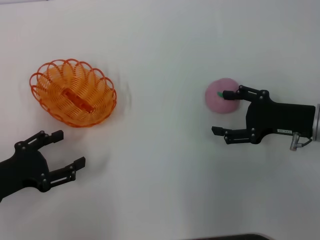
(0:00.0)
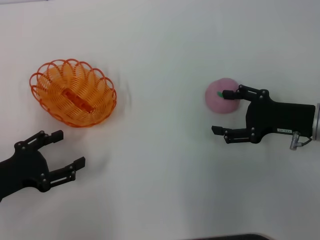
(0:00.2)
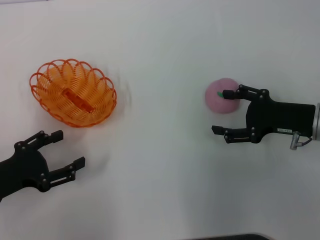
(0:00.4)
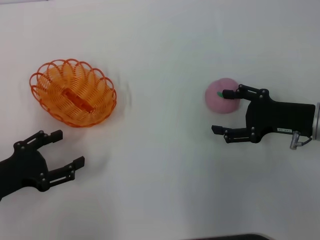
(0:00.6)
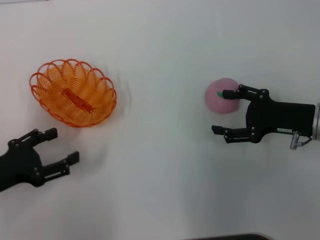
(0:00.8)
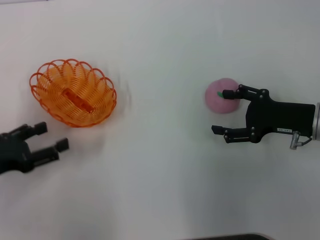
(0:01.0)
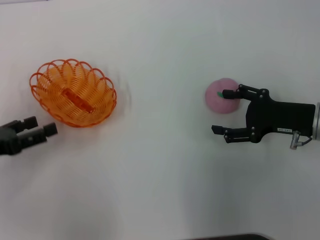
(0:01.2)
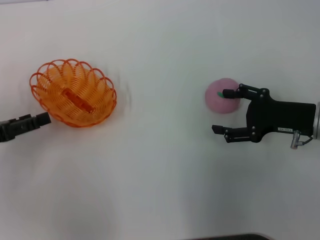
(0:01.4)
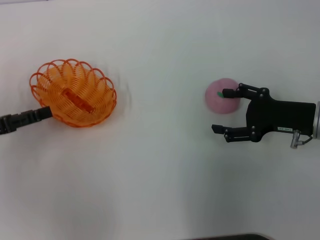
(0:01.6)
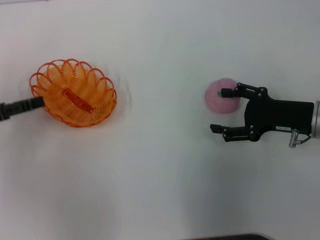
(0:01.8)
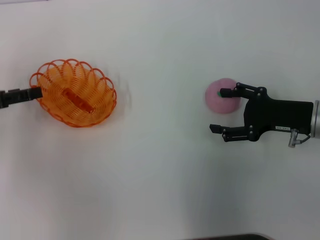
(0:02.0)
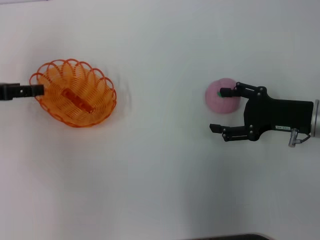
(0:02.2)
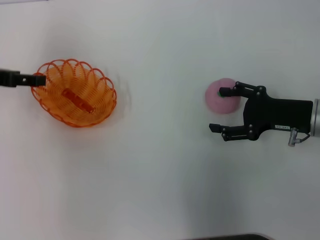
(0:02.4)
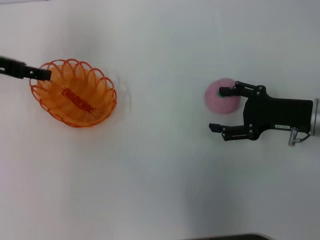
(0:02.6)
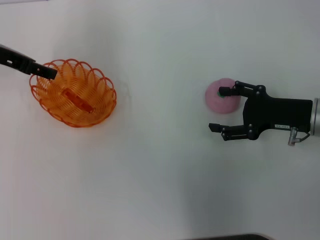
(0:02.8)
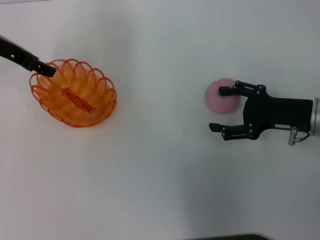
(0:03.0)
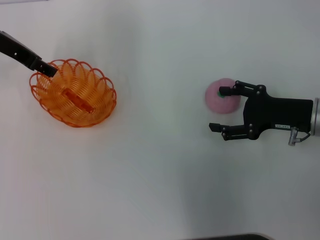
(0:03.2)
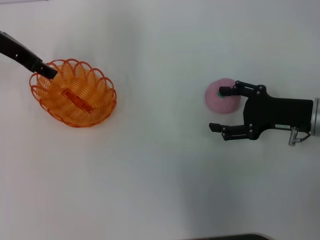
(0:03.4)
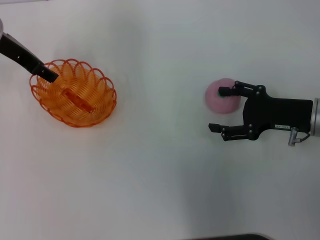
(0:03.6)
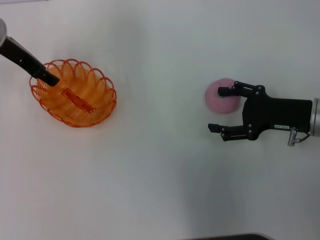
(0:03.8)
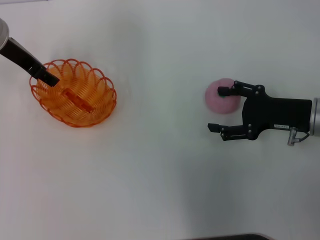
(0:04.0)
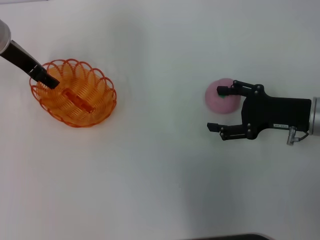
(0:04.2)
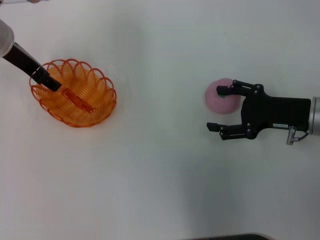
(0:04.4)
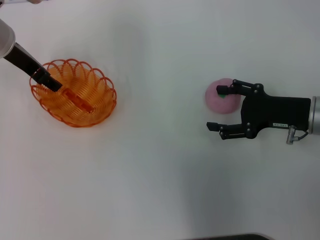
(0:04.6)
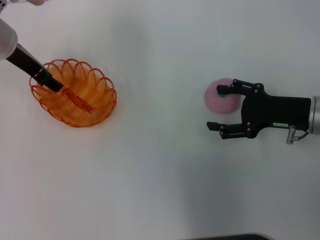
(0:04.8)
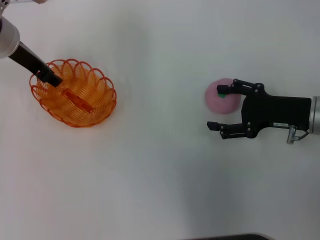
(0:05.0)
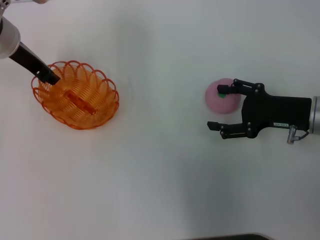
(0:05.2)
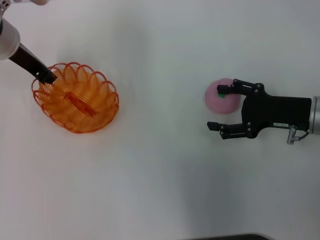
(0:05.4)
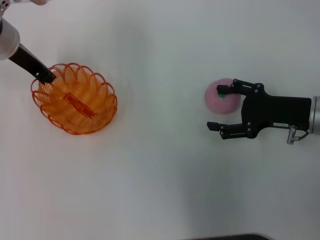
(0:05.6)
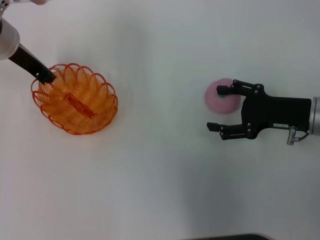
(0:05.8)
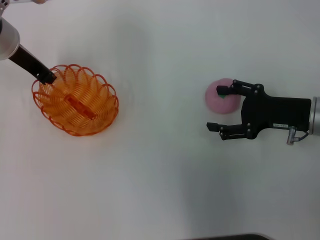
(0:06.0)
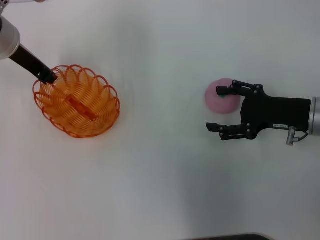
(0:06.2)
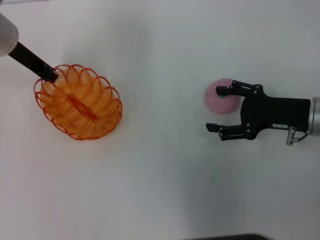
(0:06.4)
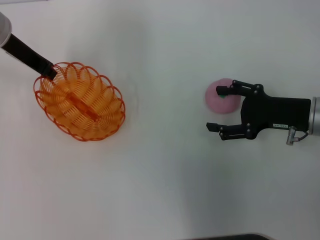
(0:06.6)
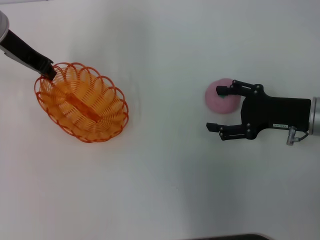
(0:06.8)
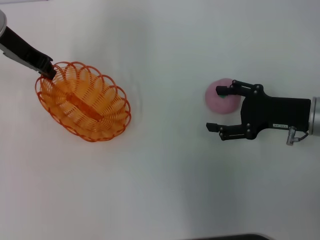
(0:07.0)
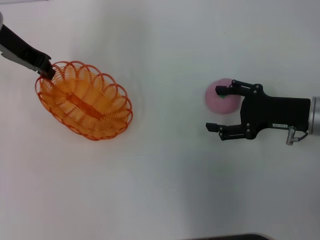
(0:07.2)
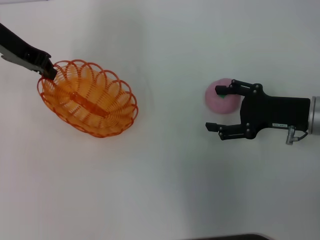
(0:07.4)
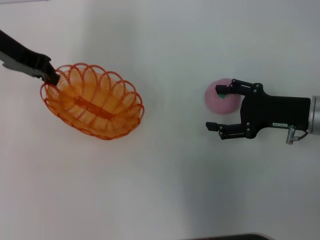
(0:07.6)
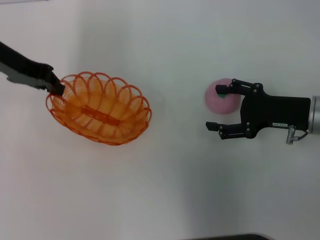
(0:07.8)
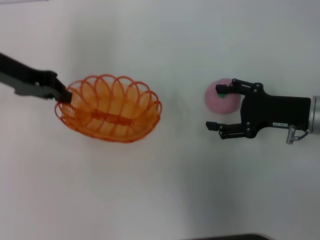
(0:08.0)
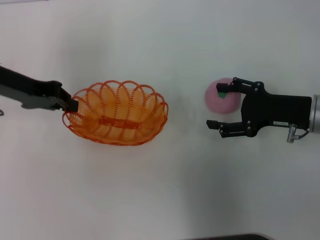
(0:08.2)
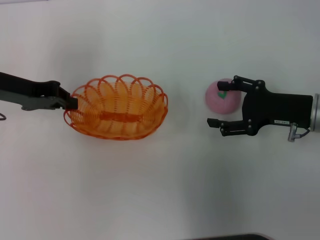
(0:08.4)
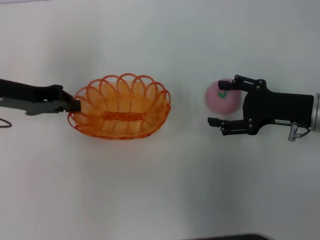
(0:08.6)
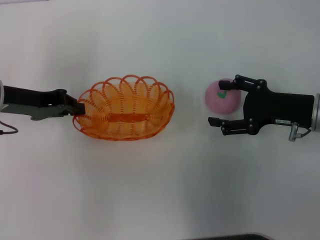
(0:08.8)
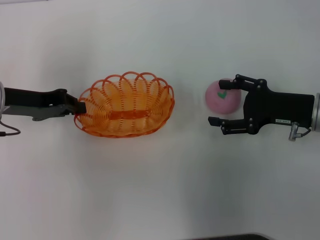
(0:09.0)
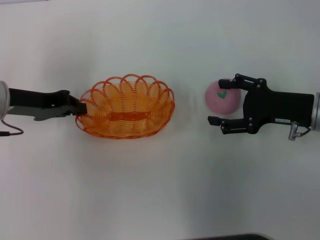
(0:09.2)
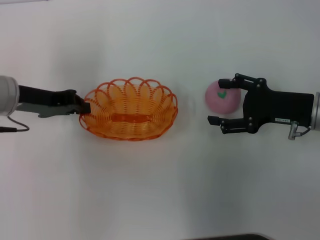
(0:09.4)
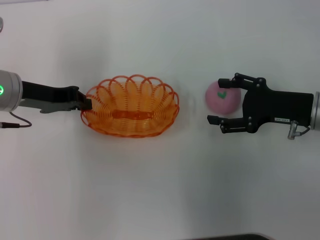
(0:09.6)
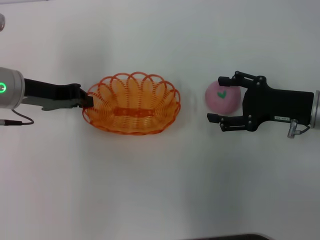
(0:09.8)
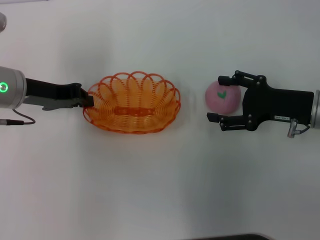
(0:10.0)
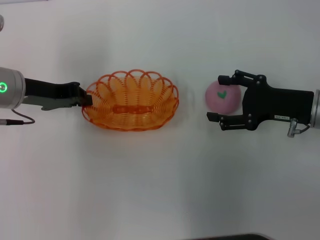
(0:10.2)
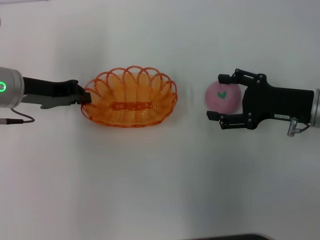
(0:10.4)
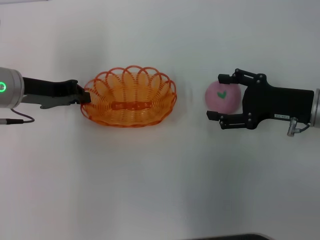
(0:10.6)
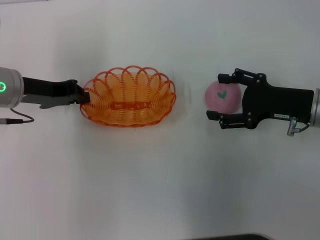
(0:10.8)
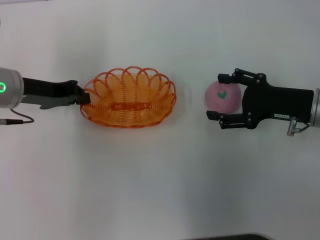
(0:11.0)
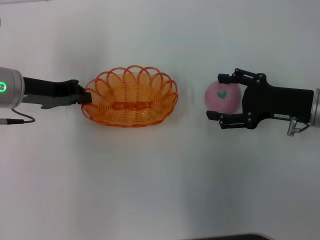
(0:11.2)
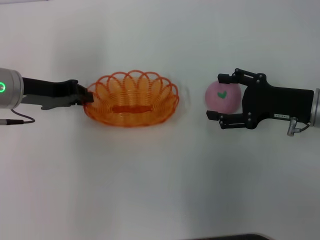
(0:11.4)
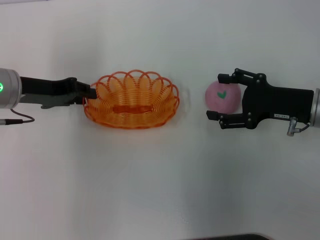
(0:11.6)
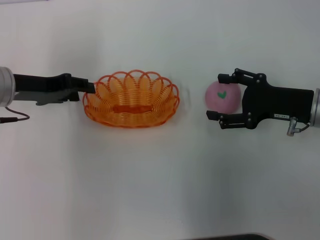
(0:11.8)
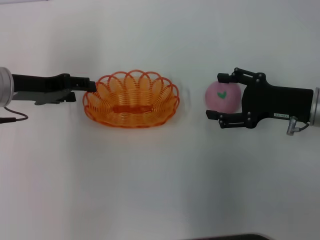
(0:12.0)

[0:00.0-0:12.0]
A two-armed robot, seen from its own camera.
Step, 0:00.0 to 0:07.4: Pick up the basket with the left gripper.
0:00.0 to 0:01.6: The left gripper shifts roughly 5 cm forward.
0:01.6 to 0:03.0: The left gripper goes some 20 cm forward, upward and to the right.
0:03.0 to 0:04.4: The grippers make only small movements.
0:04.4 to 0:06.0: The left gripper closes up.
0:07.6 to 0:09.0: The left gripper travels backward and downward by about 10 cm.
0:09.0 to 0:10.4: The grippers stay close to where they were, moving slightly.
0:10.4 to 0:12.0: The left gripper opens up.

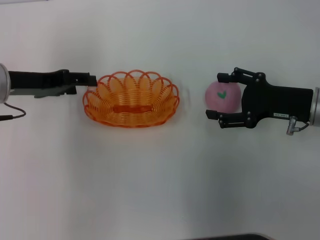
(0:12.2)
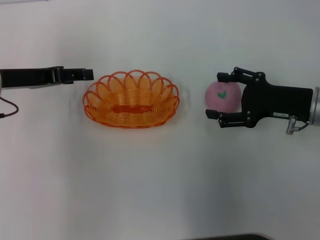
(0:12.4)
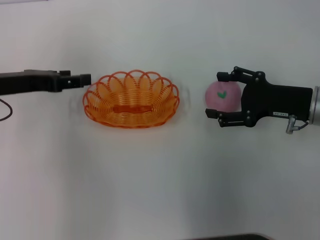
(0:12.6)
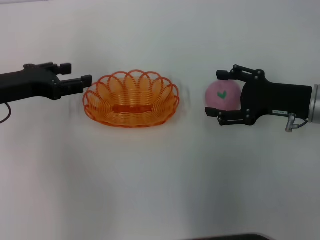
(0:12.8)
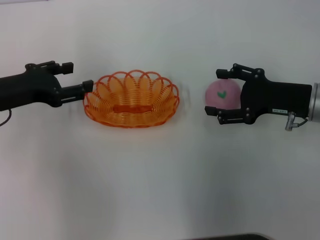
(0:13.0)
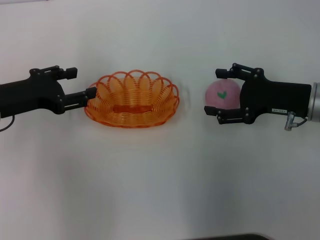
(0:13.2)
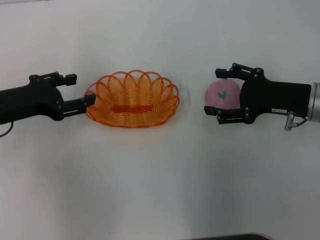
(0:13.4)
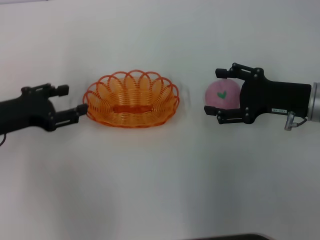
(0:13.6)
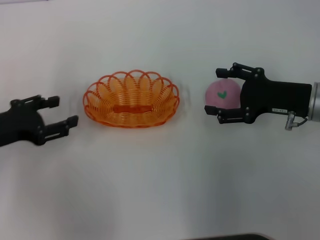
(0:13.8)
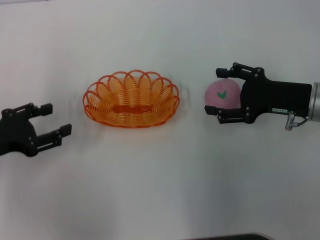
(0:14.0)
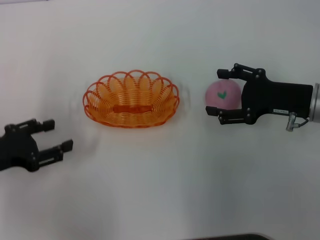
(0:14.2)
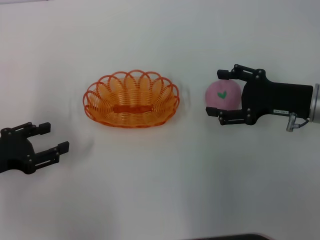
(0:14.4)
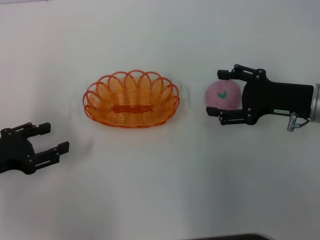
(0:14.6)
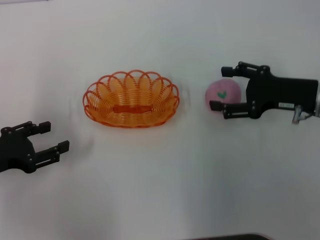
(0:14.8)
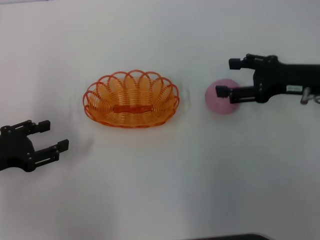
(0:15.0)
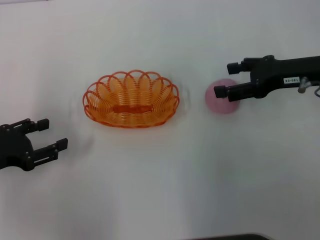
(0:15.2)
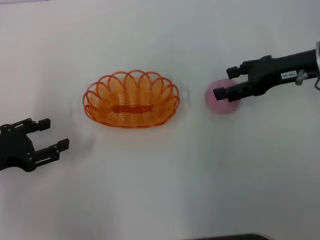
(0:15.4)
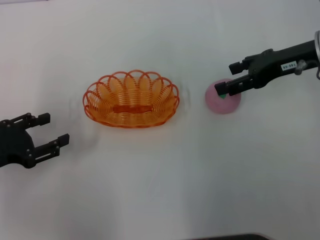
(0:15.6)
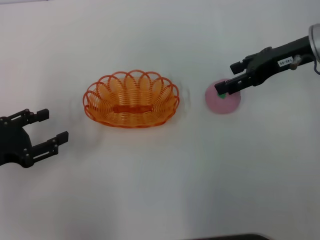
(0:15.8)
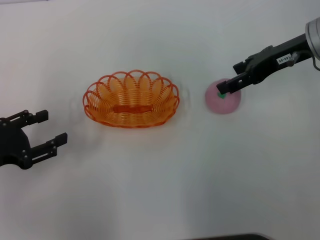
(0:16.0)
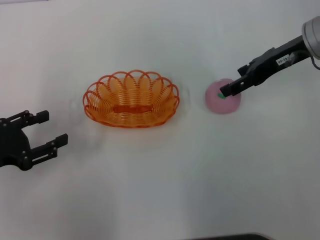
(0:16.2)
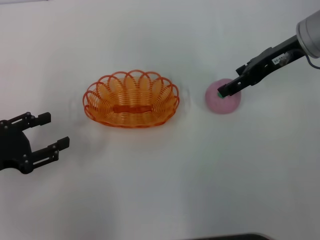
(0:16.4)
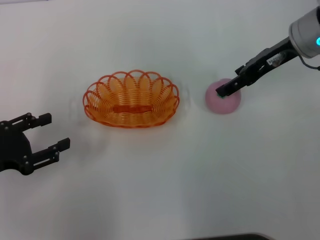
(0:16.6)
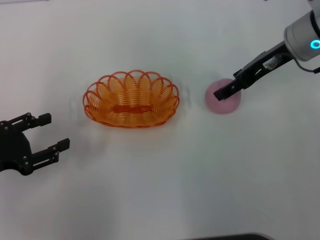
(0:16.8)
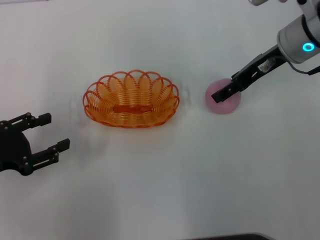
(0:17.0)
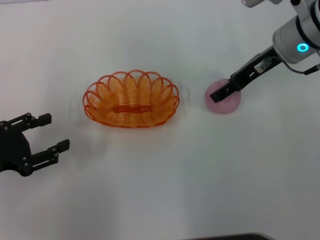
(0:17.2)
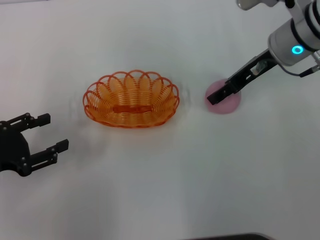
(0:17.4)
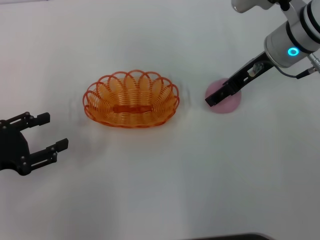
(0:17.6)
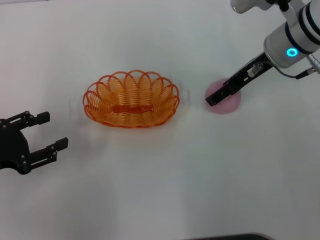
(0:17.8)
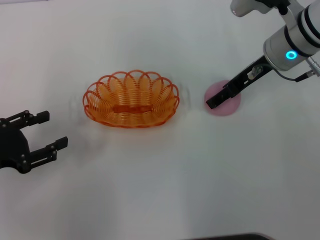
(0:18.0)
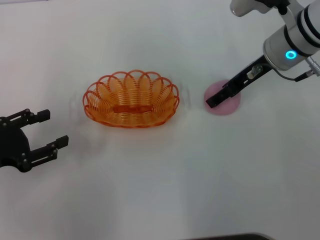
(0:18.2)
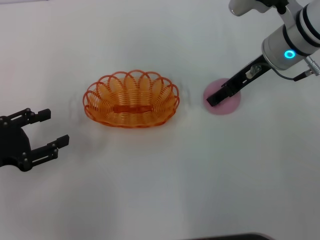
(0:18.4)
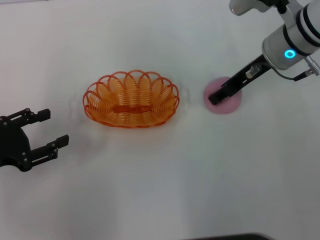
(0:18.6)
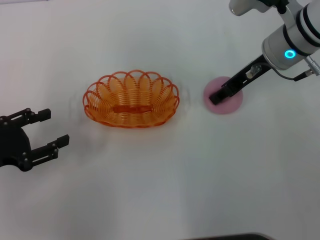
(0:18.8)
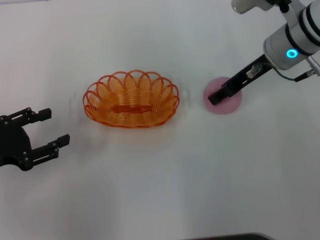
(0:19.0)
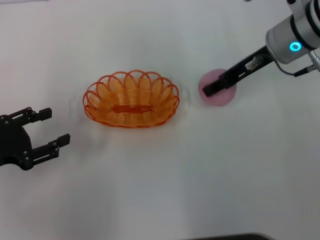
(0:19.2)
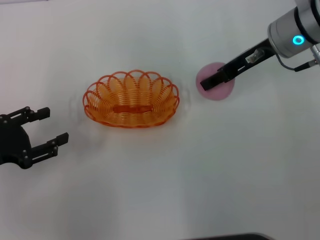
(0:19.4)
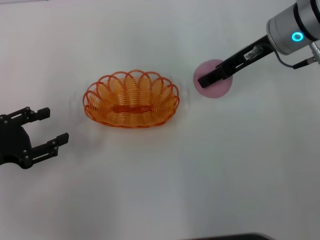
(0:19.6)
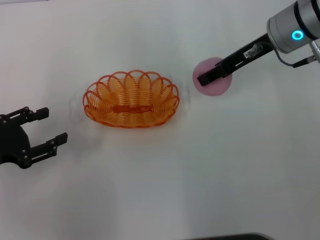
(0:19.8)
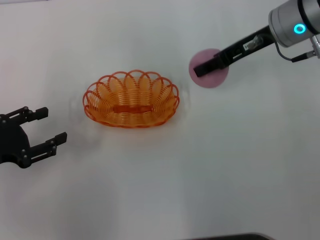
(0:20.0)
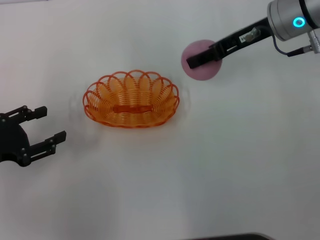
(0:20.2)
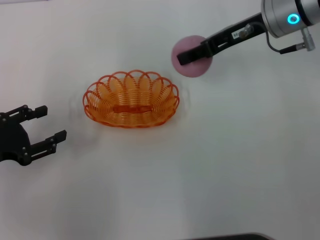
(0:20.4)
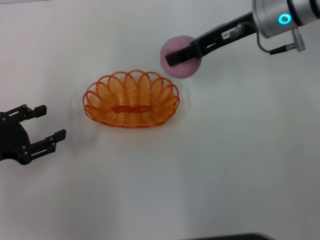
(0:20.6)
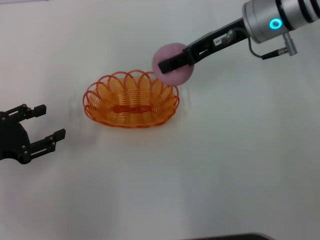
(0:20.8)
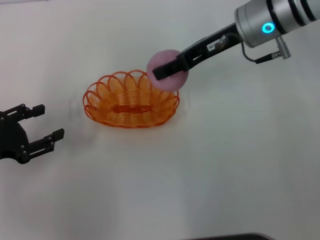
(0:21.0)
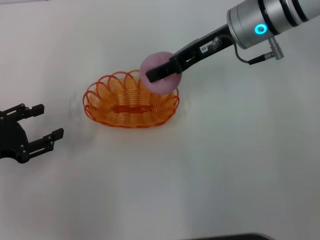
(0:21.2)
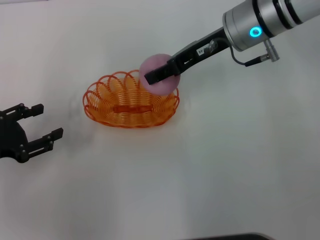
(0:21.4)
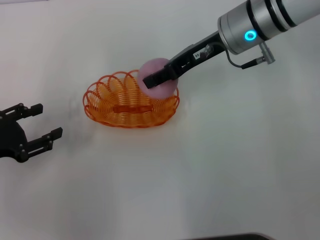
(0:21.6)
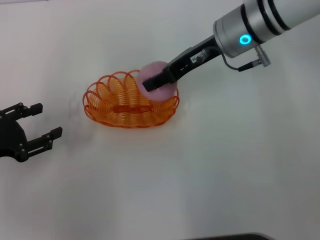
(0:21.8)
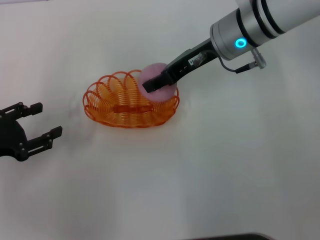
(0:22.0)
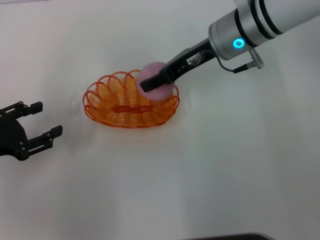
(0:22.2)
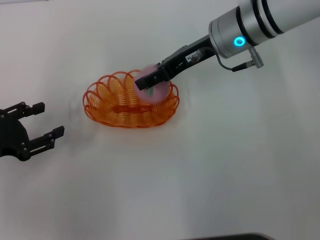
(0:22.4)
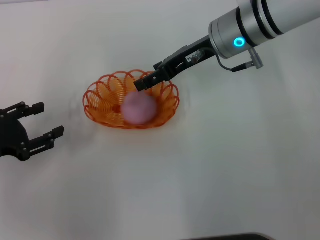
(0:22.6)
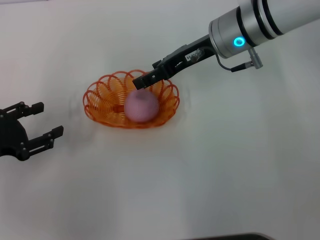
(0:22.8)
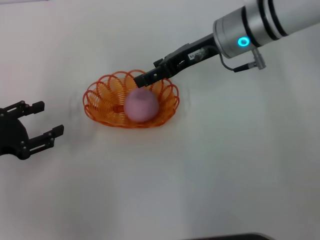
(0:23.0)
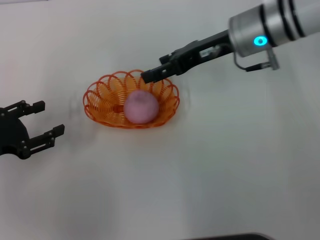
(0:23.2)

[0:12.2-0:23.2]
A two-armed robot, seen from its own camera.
Step, 0:12.6 to 0:20.2: Pick up the peach with the right gripper.
Step, 0:20.4 to 0:22.8: Place the peach into the basket with the right gripper.
0:12.2 to 0:13.8: The left gripper travels backward by some 5 cm.
0:13.8 to 0:15.4: The right gripper heads upward, covering some 5 cm.
0:15.4 to 0:17.0: The right gripper travels to the left by about 5 cm.
0:17.0 to 0:18.4: The grippers make only small movements.
0:18.4 to 0:20.0: The right gripper closes up.
0:20.0 to 0:21.6: The right gripper is displaced to the left by roughly 5 cm.
0:21.6 to 0:23.2: The right gripper opens its fingers.
